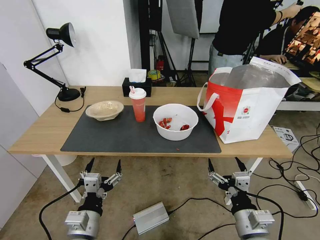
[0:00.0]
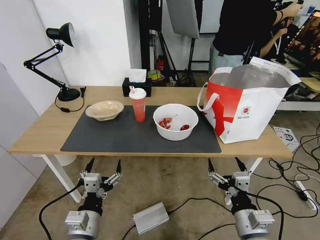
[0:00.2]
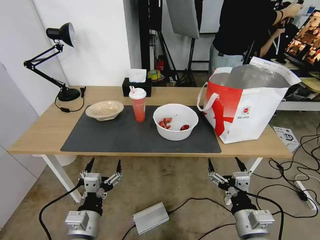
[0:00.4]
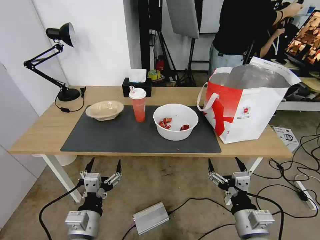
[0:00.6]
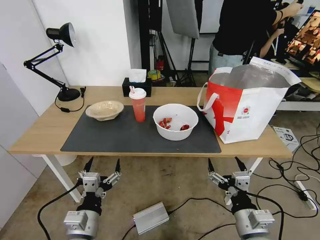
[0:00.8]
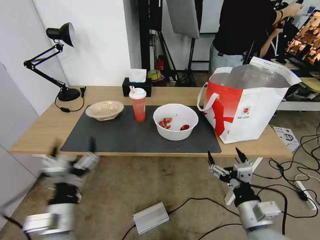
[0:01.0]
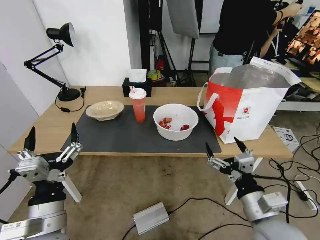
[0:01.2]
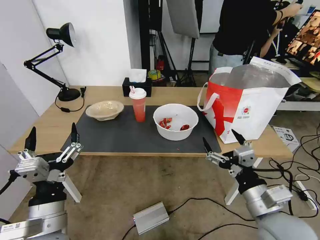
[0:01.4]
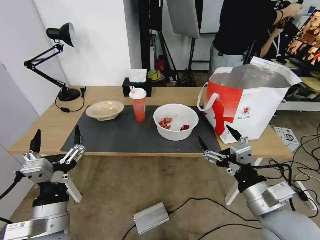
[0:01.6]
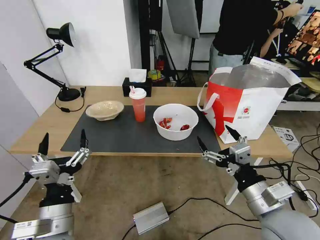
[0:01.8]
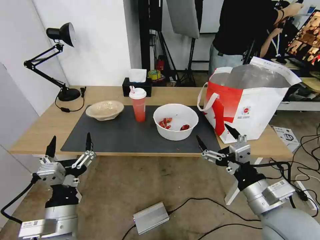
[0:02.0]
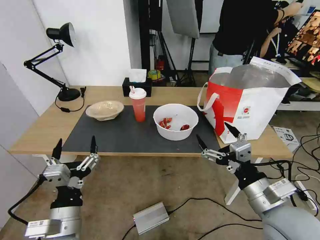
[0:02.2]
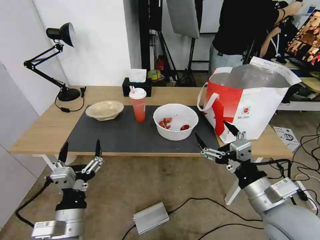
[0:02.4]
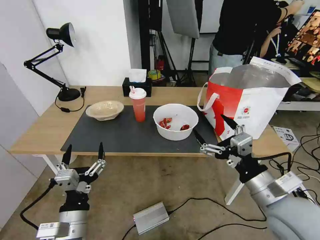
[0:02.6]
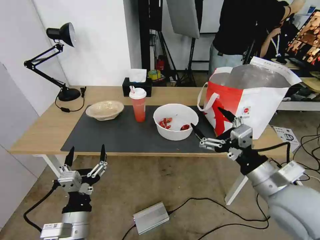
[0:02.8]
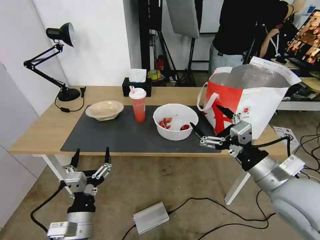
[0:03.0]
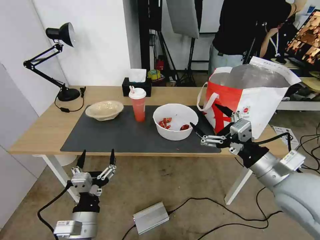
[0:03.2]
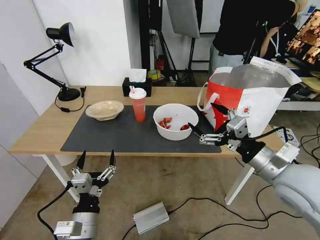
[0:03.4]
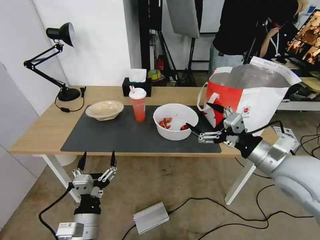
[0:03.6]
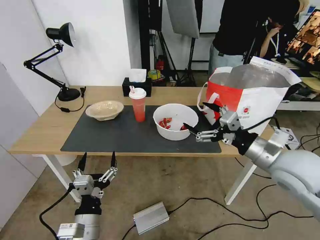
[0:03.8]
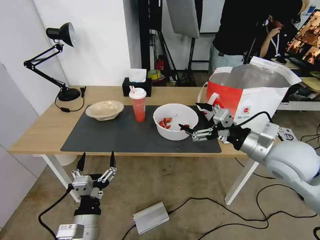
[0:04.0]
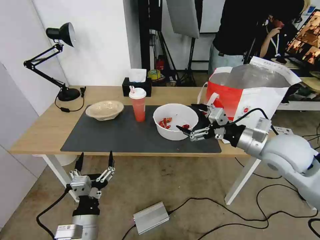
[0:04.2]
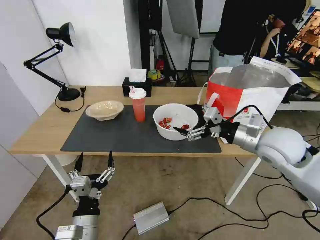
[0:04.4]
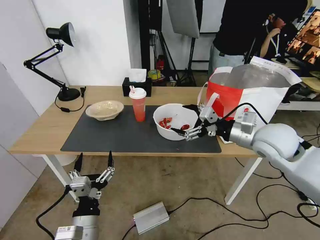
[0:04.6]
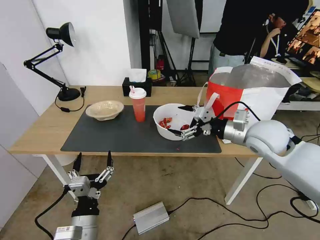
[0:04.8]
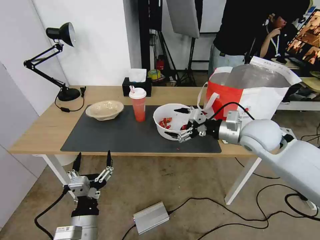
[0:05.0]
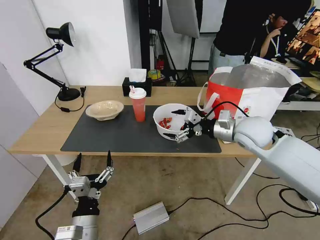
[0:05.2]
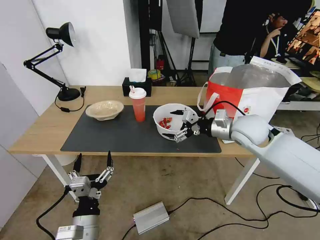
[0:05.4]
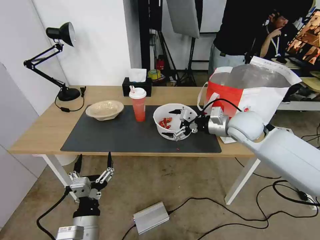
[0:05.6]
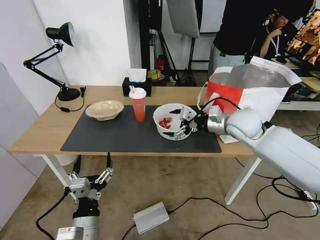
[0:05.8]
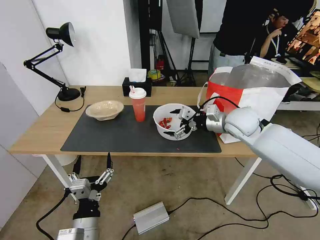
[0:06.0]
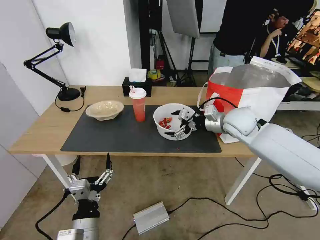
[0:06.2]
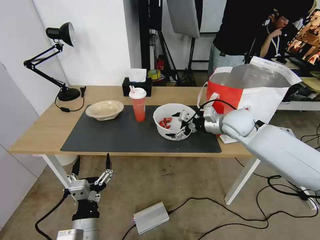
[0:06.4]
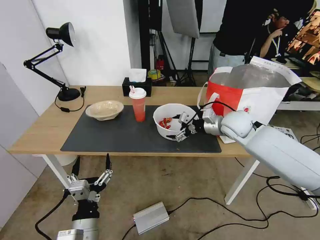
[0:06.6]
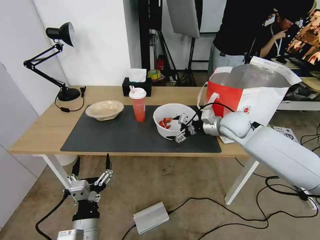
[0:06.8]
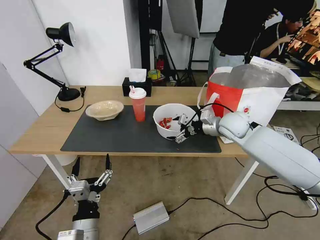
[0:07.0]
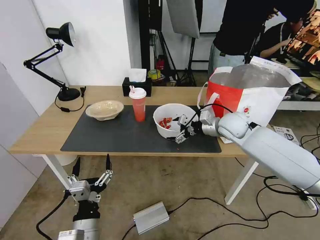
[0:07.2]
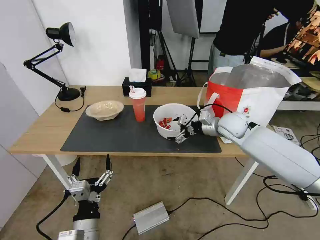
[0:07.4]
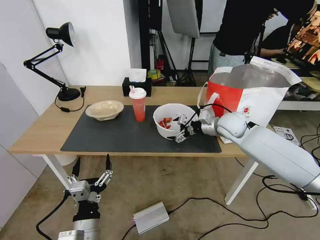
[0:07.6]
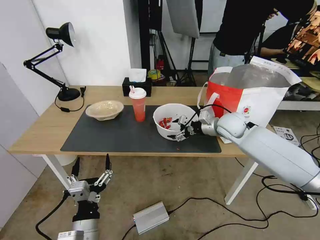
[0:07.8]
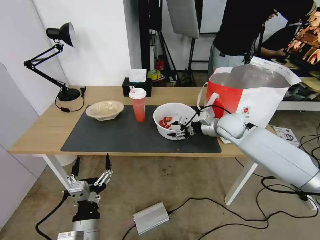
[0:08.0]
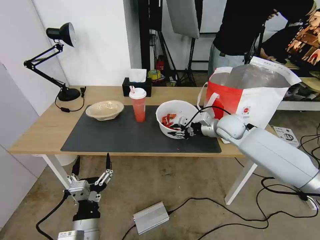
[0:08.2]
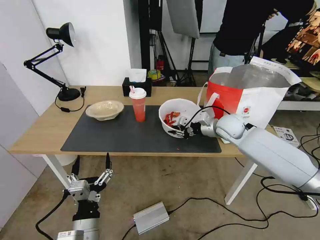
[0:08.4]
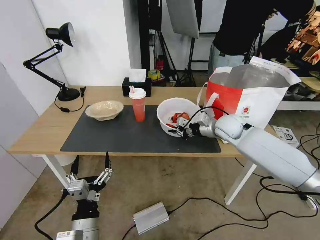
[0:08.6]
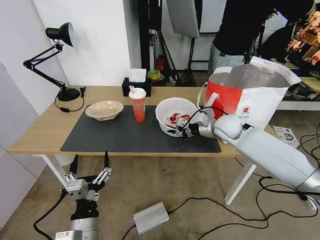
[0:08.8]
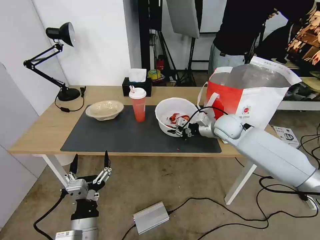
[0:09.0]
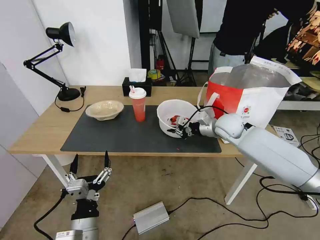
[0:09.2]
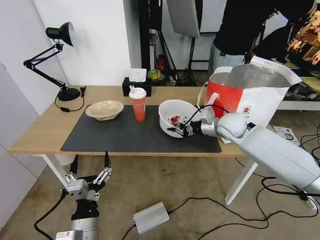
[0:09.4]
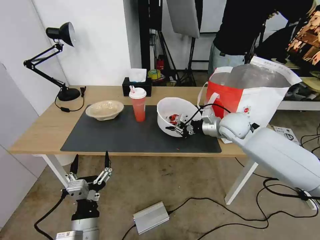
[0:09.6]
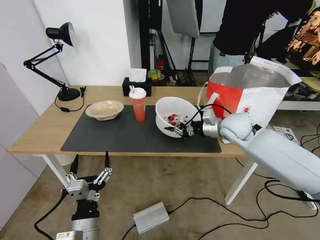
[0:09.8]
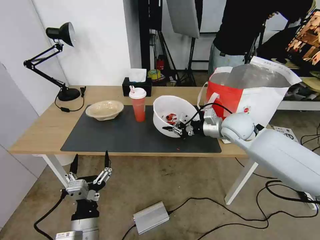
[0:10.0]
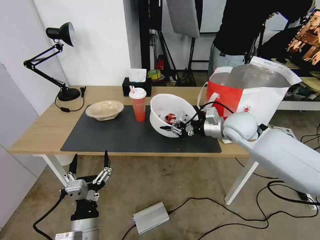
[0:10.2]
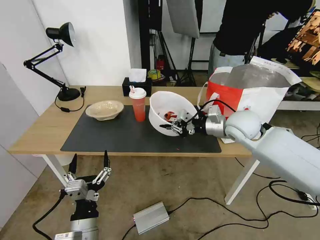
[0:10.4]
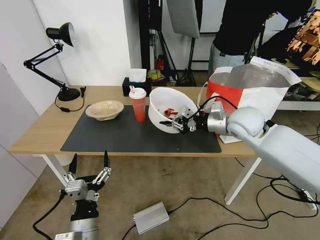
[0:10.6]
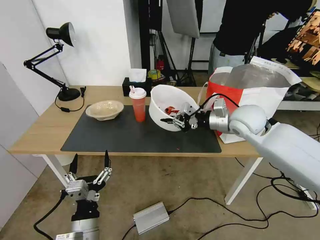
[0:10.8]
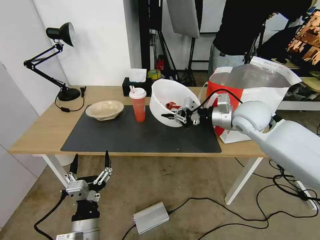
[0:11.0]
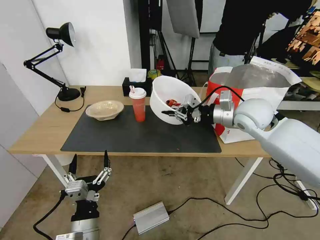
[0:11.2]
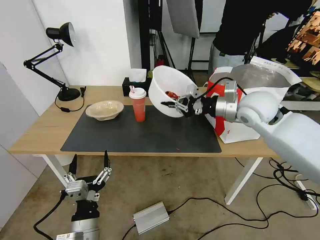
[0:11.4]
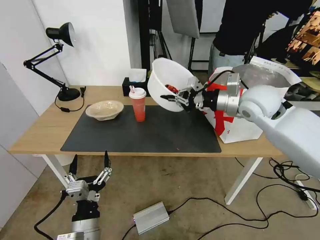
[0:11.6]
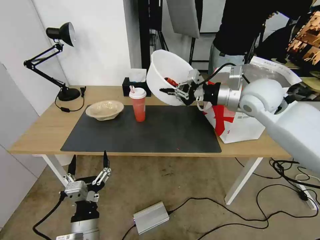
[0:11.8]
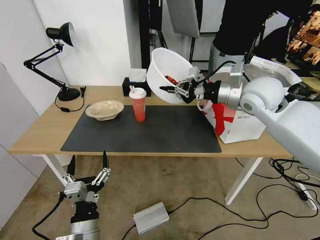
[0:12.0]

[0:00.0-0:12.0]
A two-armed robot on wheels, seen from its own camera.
Task of the whole recording: Pick up the trash from the table and place it into the takeout bag.
0:01.6 to 0:03.0: The right gripper heads forward, covering some 5 cm. The left gripper moves downward, about 5 cm.
0:03.0 to 0:04.4: The right gripper shifts some 15 cm forward.
0:04.4 to 0:06.0: The right gripper travels forward by about 10 cm.
0:06.0 to 0:07.6: The right gripper changes place by some 5 cm.
0:07.6 to 0:09.0: The right gripper closes.
0:09.0 to 0:10.4: The right gripper is displaced upward and backward by some 10 cm.
0:10.4 to 0:12.0: The right gripper travels upward by some 10 cm.

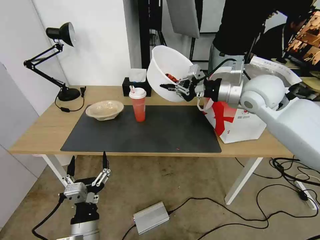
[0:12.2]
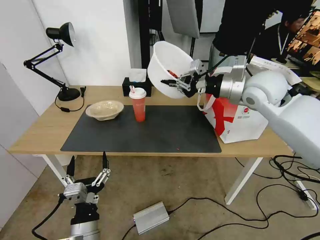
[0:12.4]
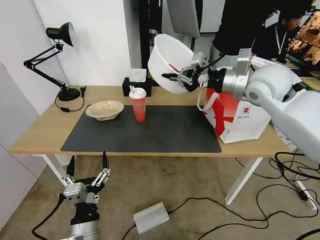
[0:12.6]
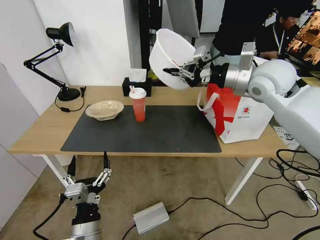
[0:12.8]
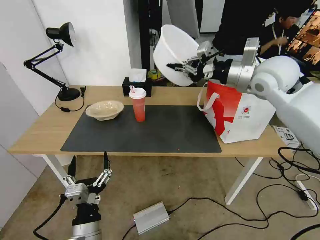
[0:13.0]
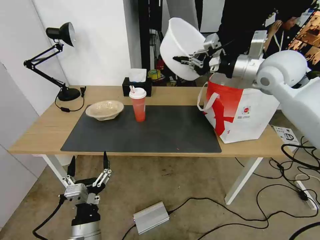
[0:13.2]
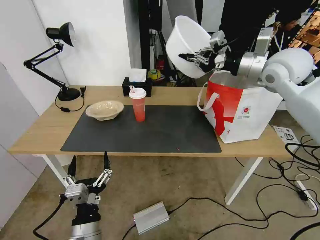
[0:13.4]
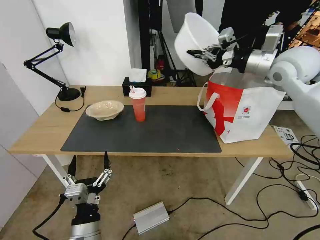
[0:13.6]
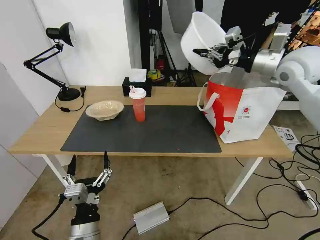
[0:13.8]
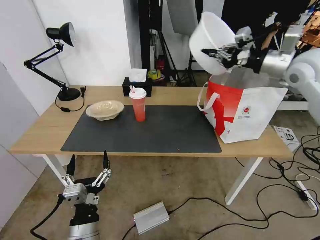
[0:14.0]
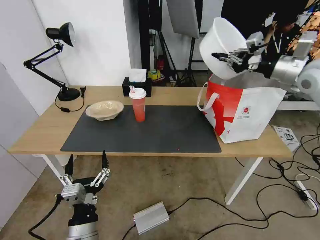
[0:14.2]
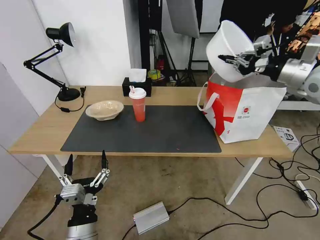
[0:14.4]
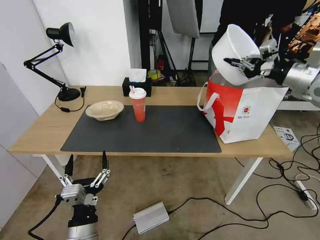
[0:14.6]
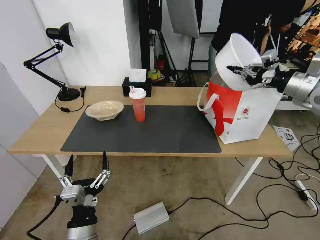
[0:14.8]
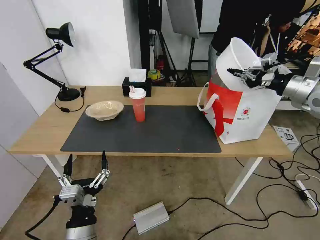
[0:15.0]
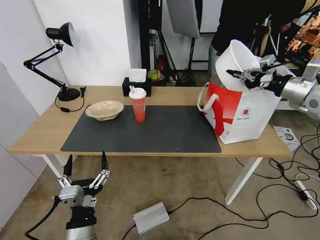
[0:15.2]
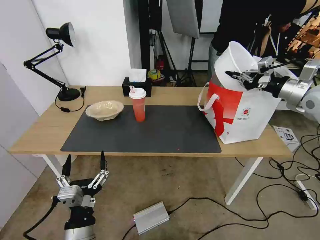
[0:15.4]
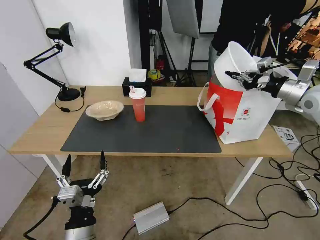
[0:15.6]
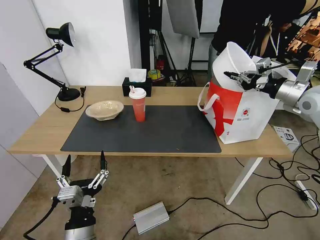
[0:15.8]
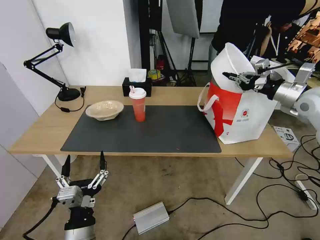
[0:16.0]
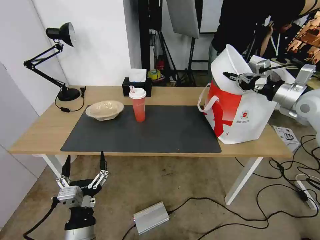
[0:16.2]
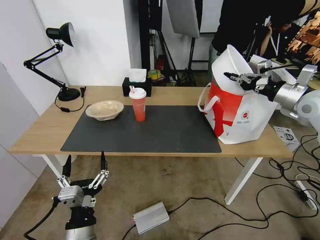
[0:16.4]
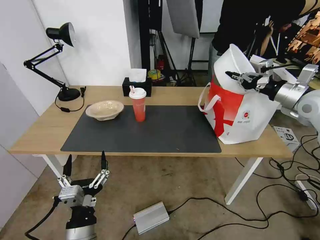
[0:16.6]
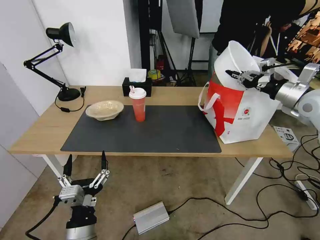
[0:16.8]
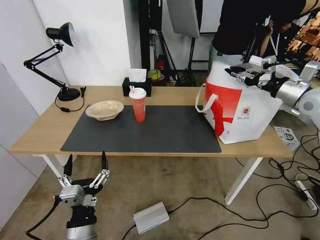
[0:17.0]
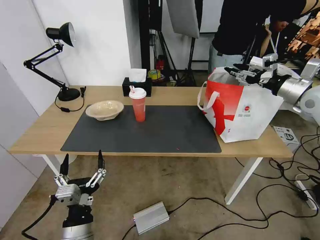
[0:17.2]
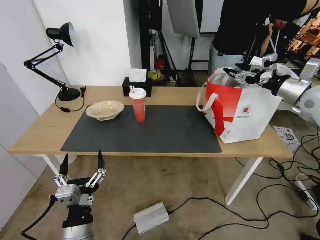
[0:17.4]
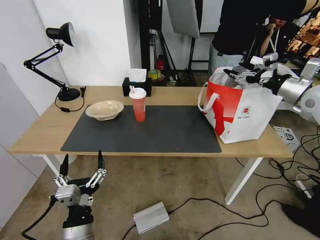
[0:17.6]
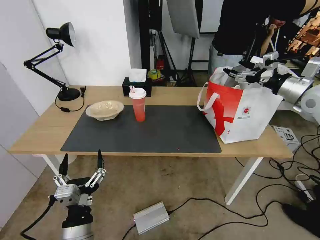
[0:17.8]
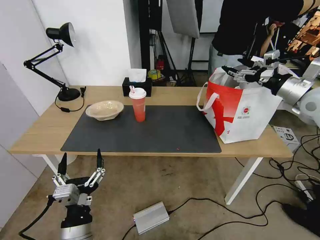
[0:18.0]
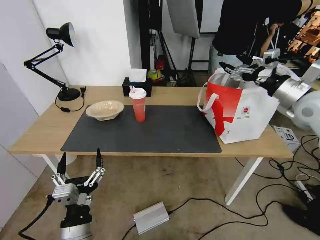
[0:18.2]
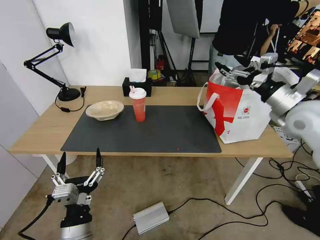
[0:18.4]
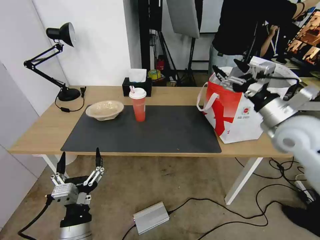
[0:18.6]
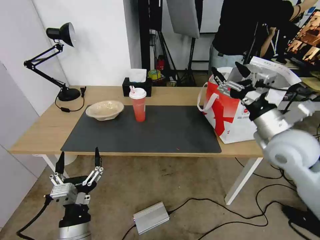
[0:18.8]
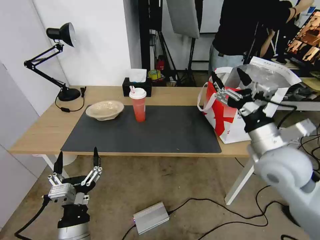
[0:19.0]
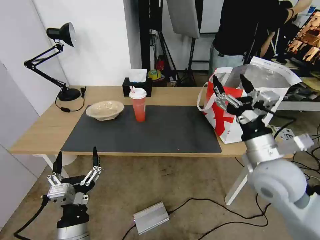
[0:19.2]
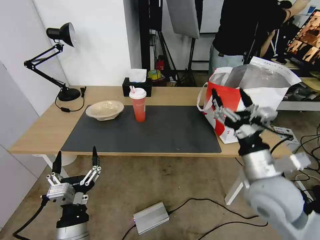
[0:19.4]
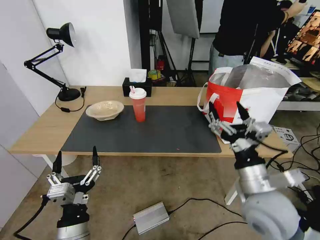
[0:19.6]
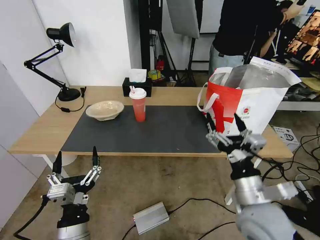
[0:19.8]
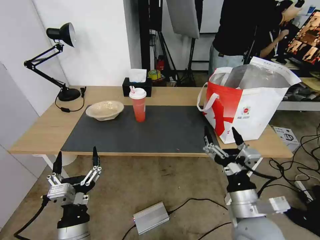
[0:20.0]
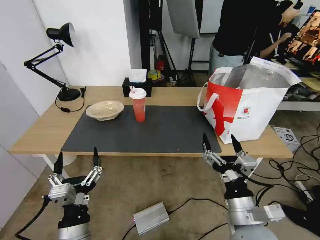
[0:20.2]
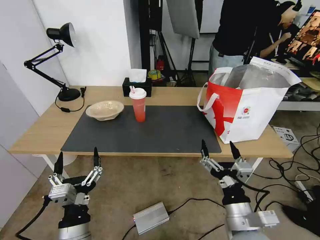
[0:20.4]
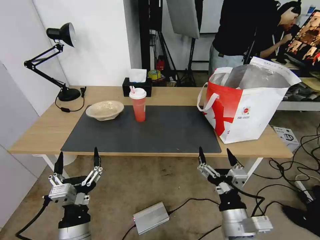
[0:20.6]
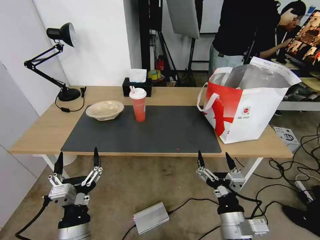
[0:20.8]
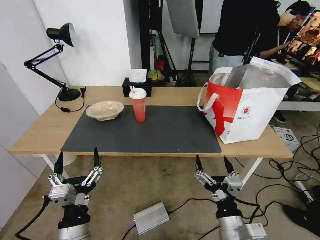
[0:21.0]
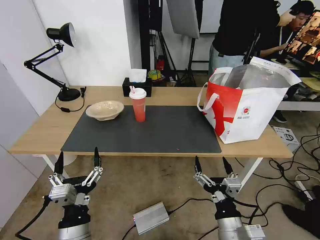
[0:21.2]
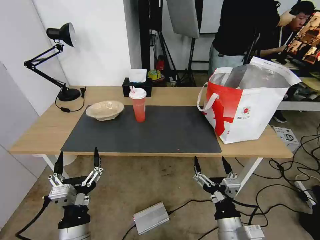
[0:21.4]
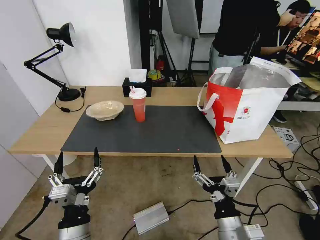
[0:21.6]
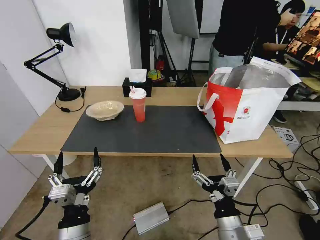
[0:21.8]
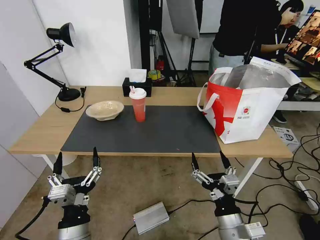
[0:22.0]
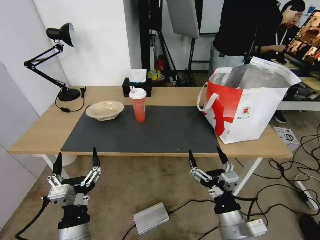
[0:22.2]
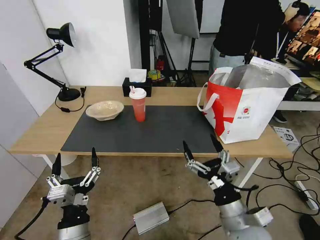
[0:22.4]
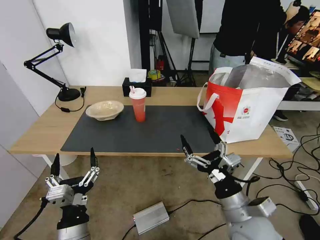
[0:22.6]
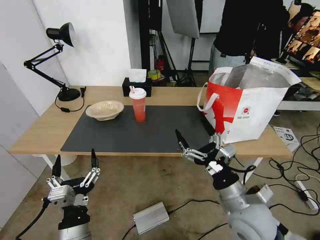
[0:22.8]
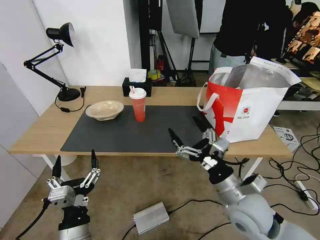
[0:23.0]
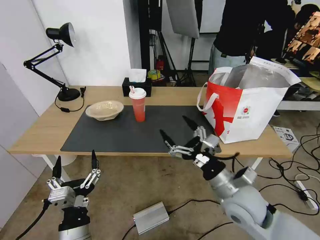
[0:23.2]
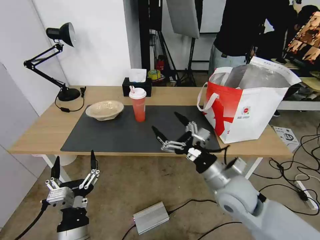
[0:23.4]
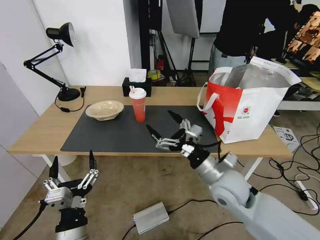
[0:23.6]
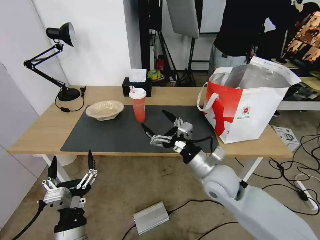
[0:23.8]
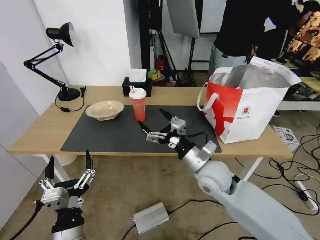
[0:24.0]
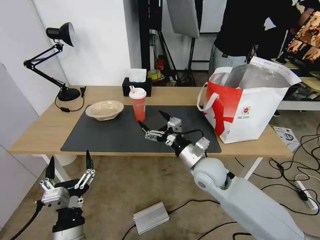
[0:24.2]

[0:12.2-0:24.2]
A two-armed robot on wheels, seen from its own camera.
Task of the whole recording: Pick up the trash from the table and place it into the takeout bag.
0:12.2 to 0:13.8: The right gripper goes roughly 10 cm to the right and upward.
0:13.8 to 0:15.2: The right gripper travels to the right and downward by some 10 cm.
0:15.2 to 0:16.6: The grippers stay close to where they were, moving slightly.
0:16.6 to 0:18.2: The right gripper changes place by approximately 5 cm, and opens its fingers.
0:18.2 to 0:19.8: The right gripper travels backward, to the left and downward by approximately 30 cm.
0:19.8 to 0:21.2: The right gripper moves downward and backward, approximately 10 cm.
0:21.2 to 0:22.6: The right gripper goes roughly 5 cm forward.
0:22.6 to 0:24.2: The right gripper is displaced forward and to the left by approximately 15 cm.
